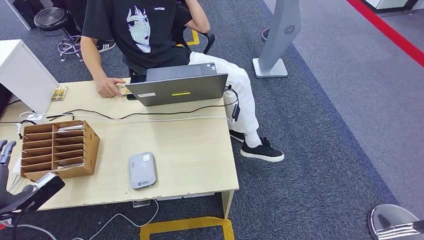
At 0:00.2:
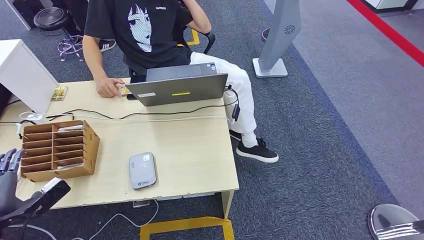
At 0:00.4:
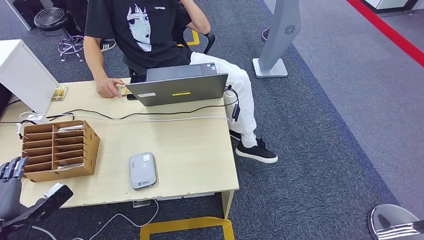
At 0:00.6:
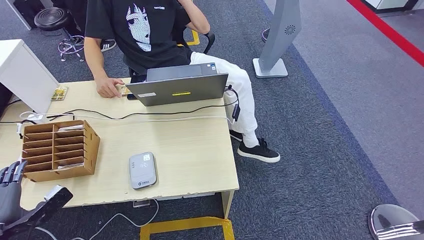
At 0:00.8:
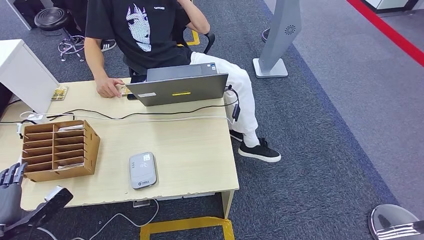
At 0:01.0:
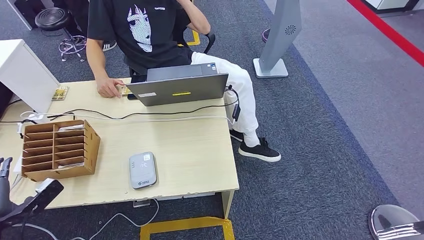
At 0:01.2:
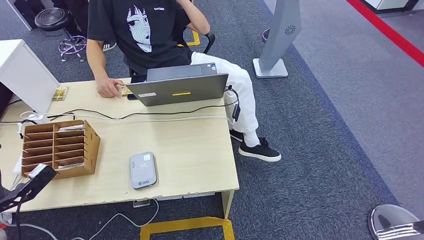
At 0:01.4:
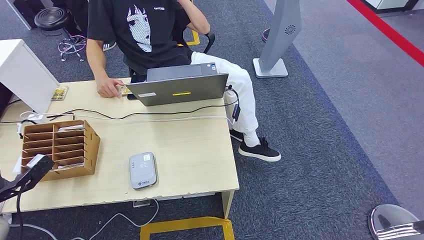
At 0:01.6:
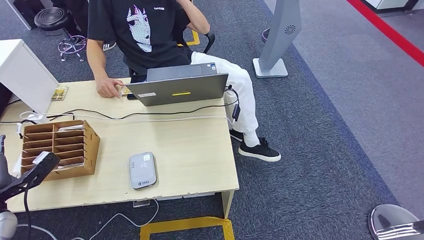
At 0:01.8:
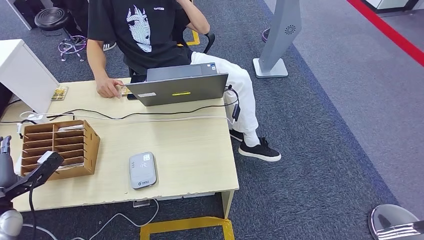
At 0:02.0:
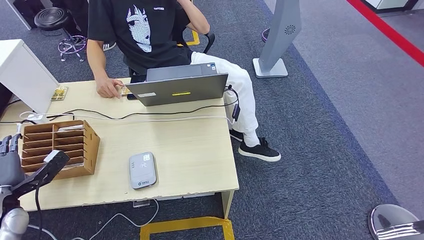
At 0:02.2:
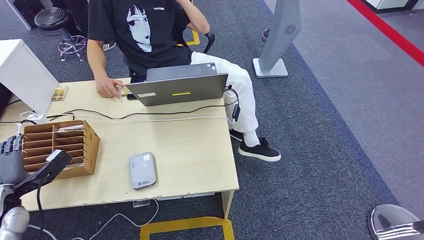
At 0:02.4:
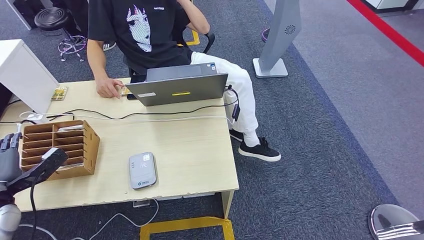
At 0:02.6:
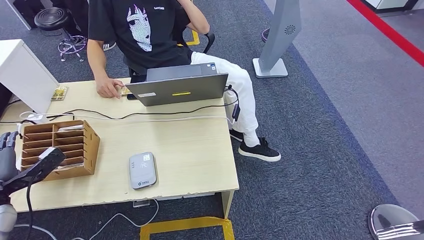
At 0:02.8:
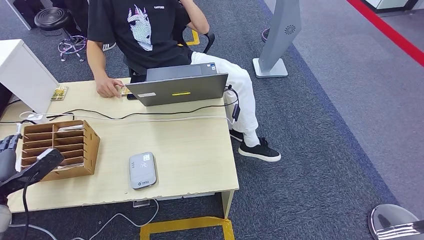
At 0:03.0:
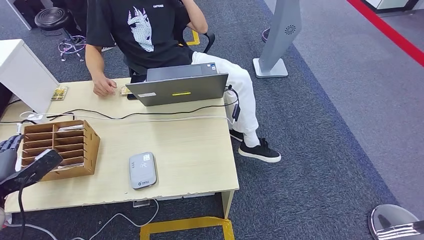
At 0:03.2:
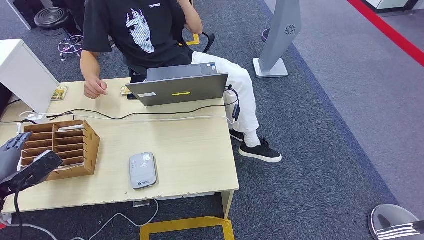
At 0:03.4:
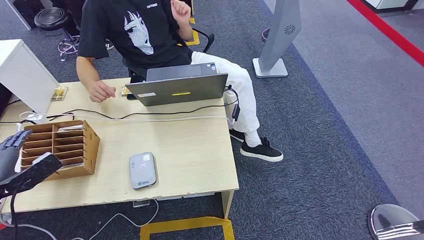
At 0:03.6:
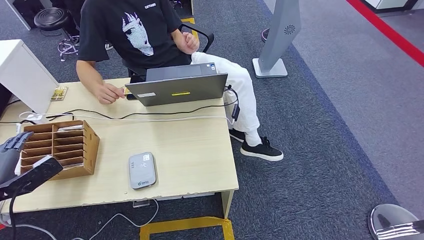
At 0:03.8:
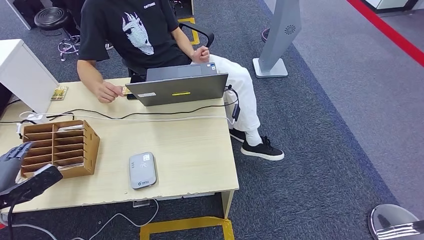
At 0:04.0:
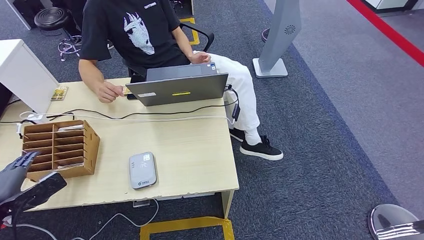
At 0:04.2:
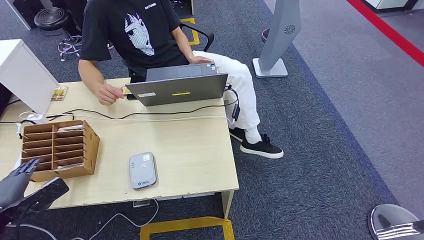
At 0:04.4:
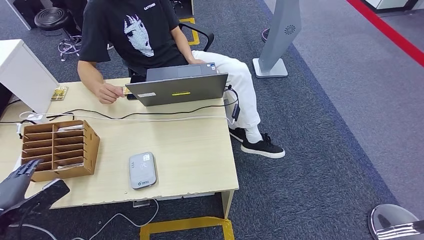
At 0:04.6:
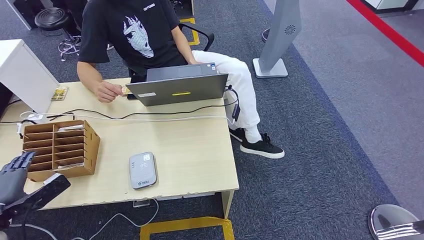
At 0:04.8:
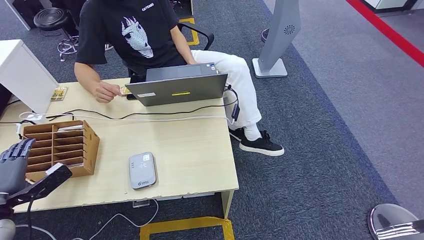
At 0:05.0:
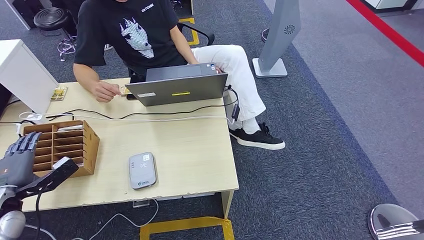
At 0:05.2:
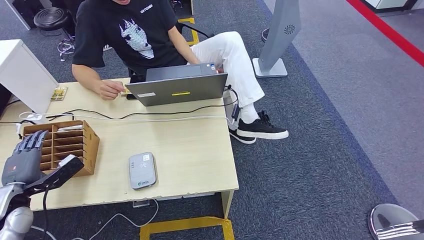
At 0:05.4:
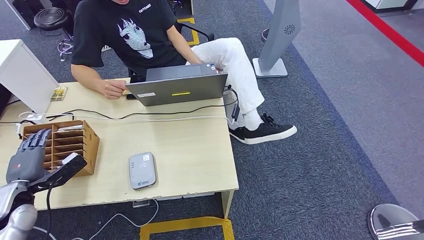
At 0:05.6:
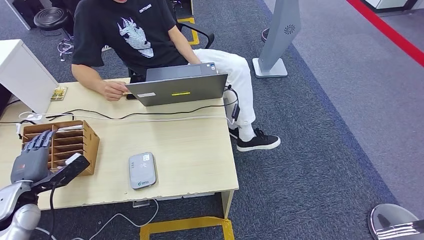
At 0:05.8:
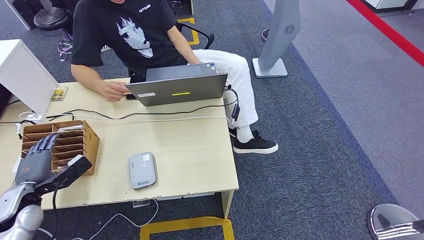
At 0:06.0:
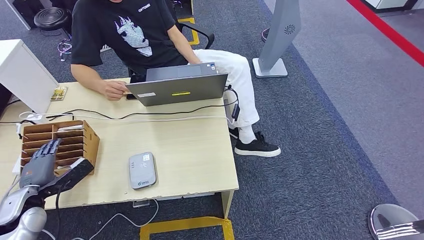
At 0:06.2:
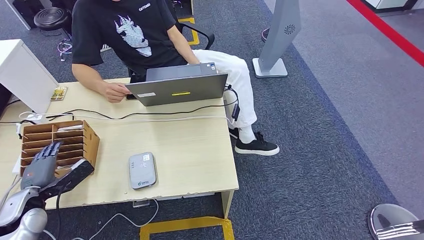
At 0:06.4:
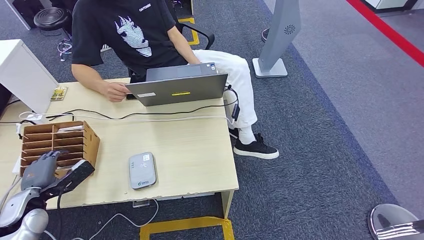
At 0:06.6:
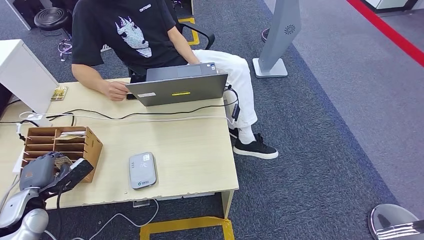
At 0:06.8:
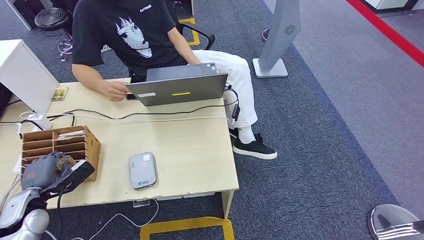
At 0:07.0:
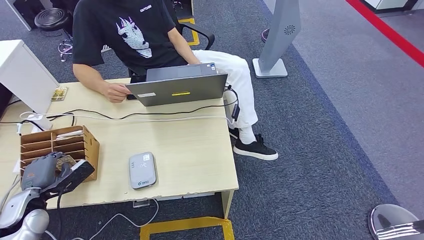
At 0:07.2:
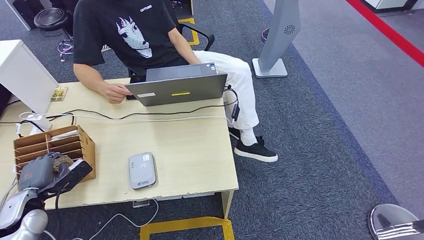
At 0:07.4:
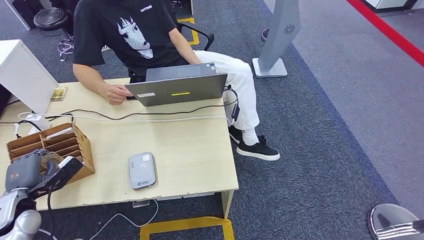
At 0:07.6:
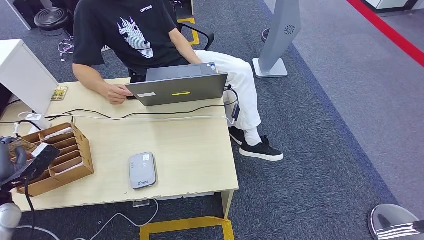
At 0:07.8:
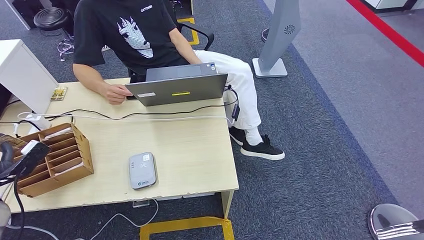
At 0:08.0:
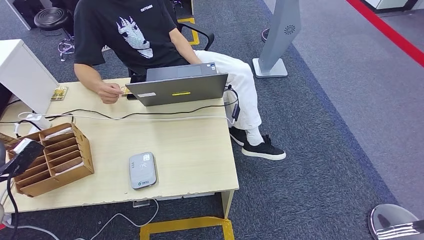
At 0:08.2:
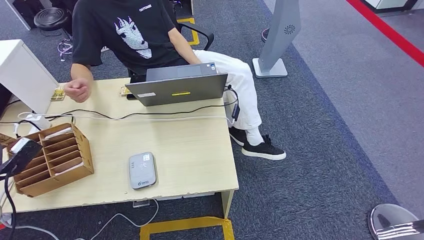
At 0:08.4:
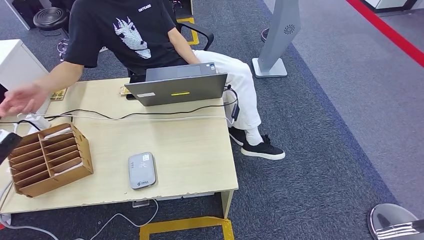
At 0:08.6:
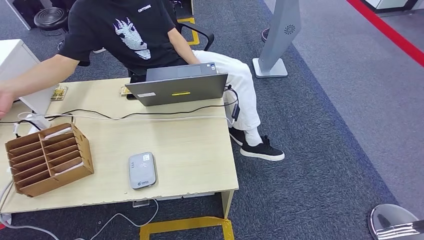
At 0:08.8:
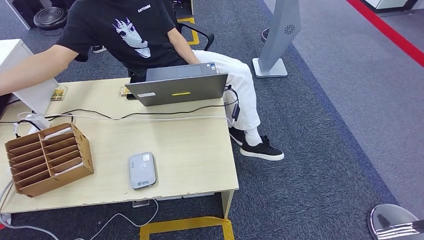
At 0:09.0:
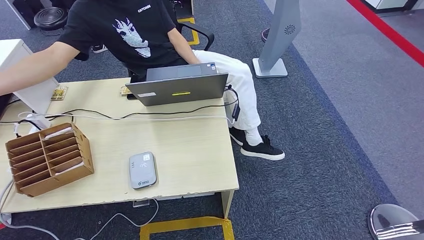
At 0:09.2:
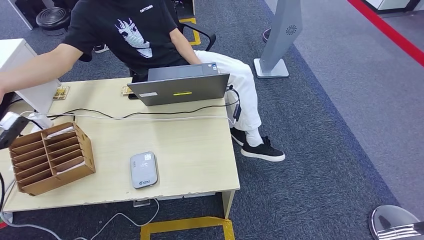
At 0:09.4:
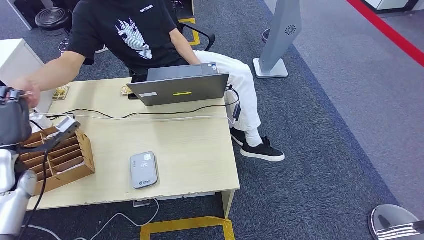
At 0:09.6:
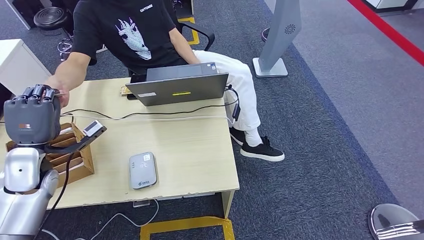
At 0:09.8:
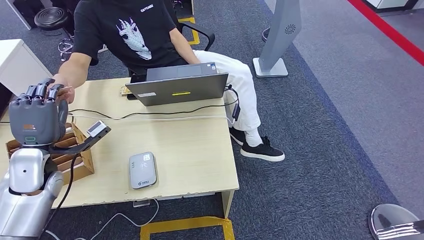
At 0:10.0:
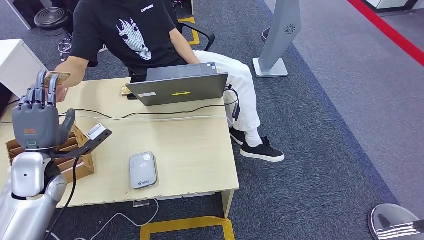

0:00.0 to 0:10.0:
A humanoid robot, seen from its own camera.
Step, 0:00.0 to 0:07.6: Pick up the room key from the key card box.
Step, 0:07.8 to 0:10.0: Hand the room key to the person.
0:00.0 to 0:01.4: The left hand is displaced forward by approximately 5 cm.
0:01.4 to 0:02.8: The hands stay close to where they were, moving slightly.
0:02.8 to 0:04.2: The left hand heads backward, covering about 5 cm.
0:04.2 to 0:05.8: The left hand moves forward, about 5 cm.
0:05.8 to 0:07.2: The hands make only small movements.
0:07.2 to 0:08.6: The left hand travels upward and to the left by some 20 cm.
0:08.6 to 0:10.0: The left hand heads to the right, covering approximately 20 cm.
